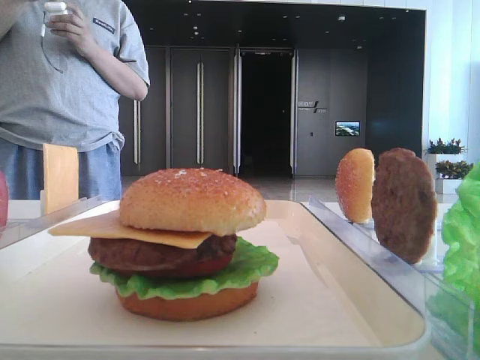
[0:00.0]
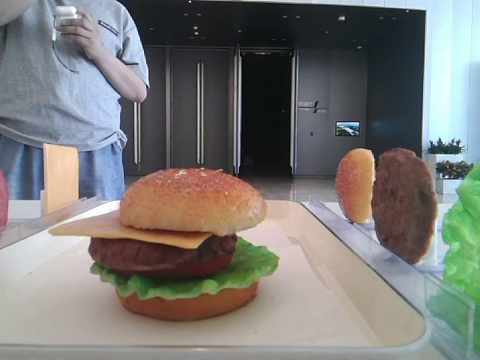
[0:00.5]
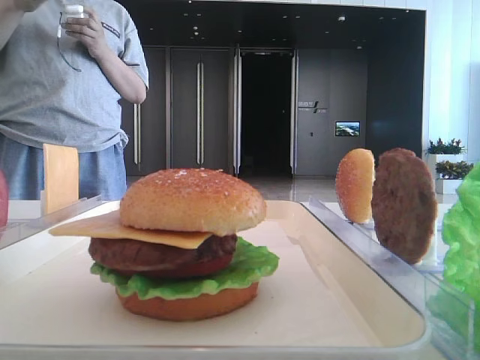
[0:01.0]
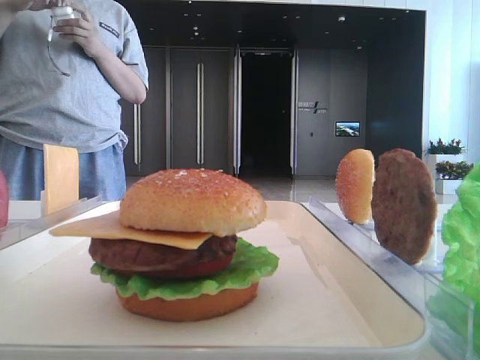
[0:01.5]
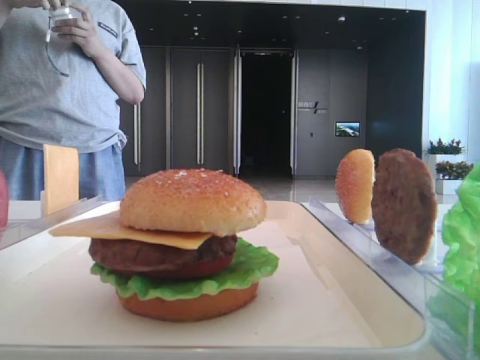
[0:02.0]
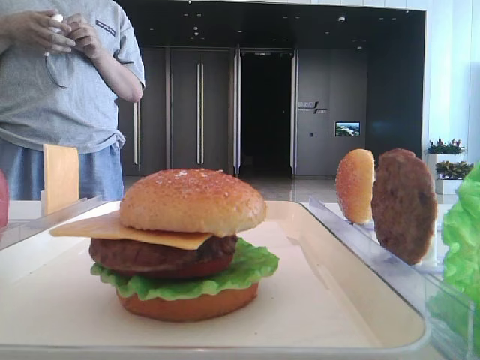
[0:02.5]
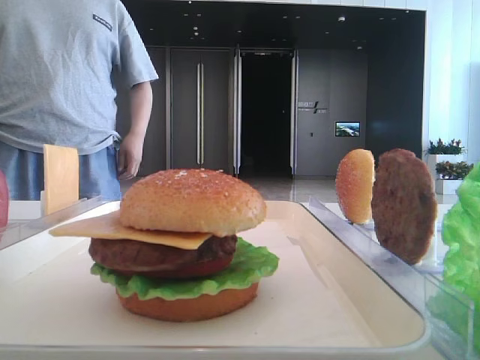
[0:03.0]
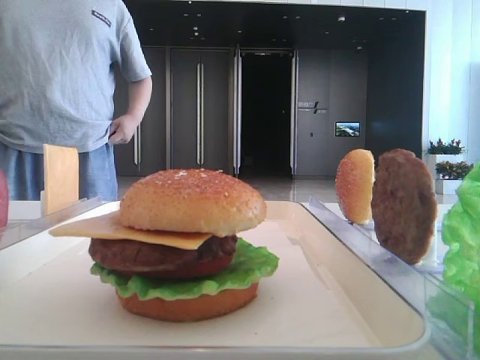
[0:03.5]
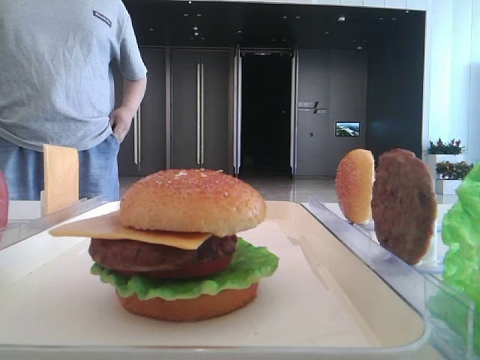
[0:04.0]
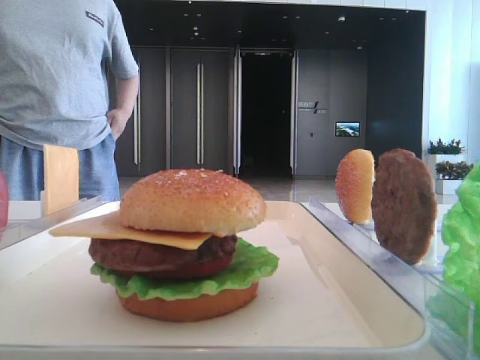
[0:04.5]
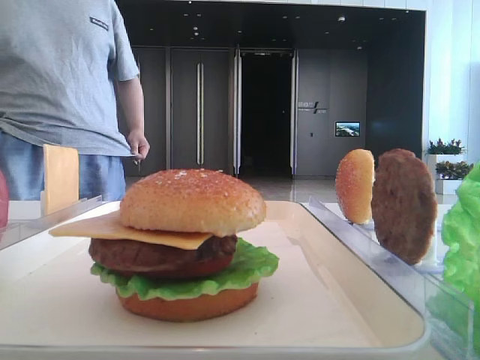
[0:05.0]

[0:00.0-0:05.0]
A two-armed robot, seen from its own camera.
0:02.5 to 0:05.0: The grippers make only small movements.
